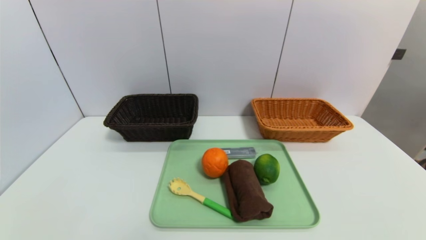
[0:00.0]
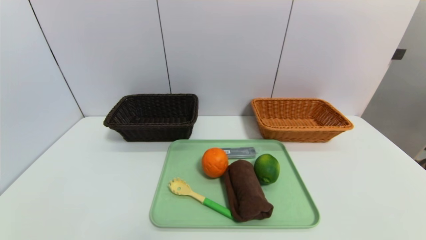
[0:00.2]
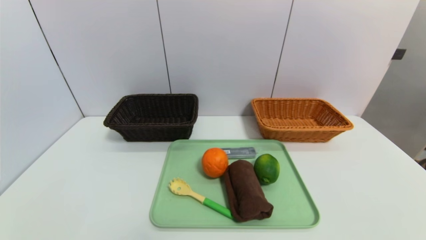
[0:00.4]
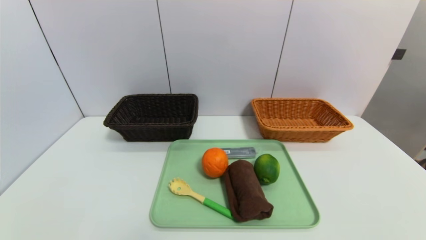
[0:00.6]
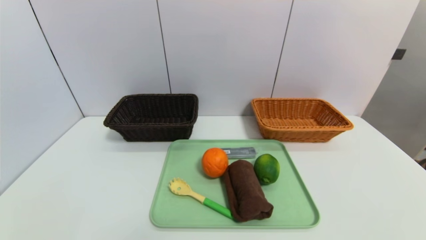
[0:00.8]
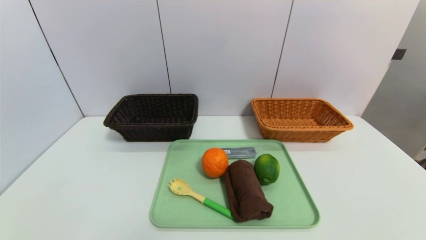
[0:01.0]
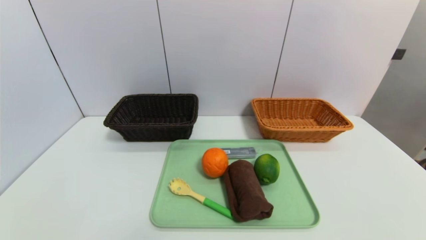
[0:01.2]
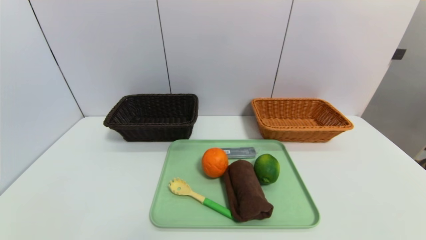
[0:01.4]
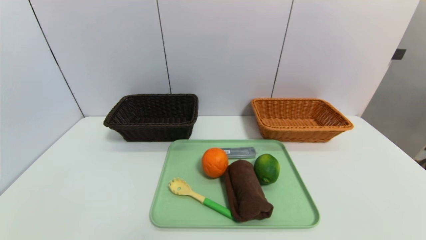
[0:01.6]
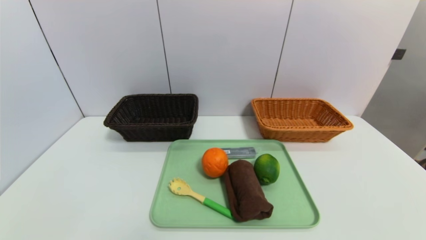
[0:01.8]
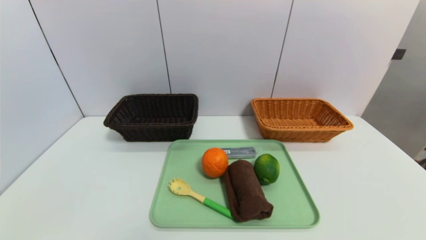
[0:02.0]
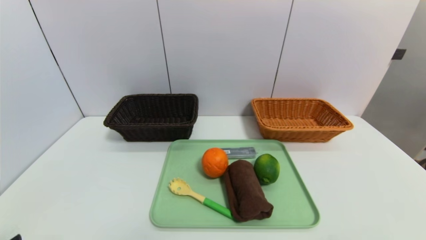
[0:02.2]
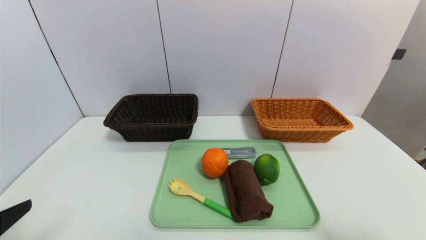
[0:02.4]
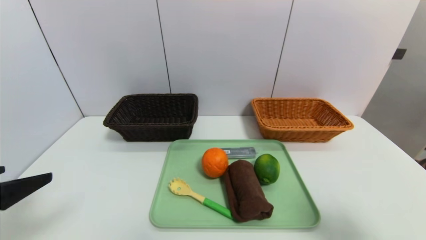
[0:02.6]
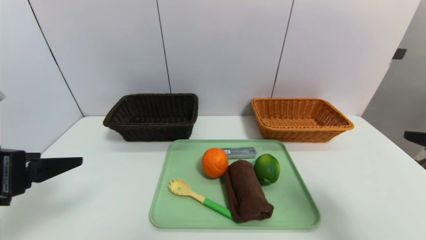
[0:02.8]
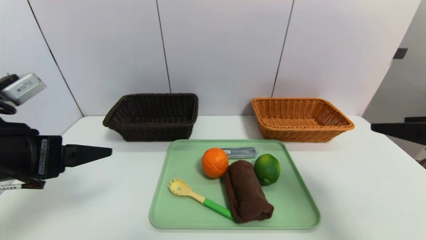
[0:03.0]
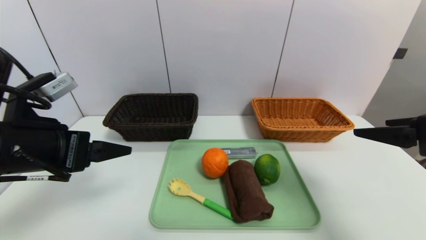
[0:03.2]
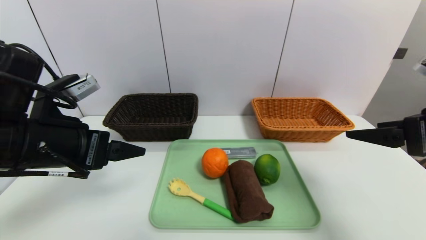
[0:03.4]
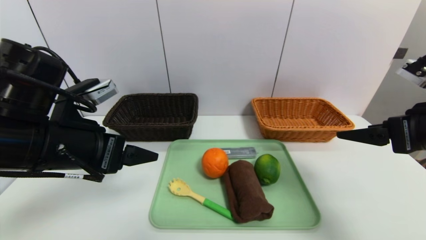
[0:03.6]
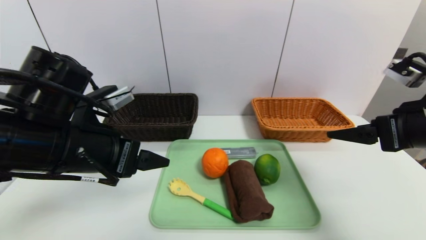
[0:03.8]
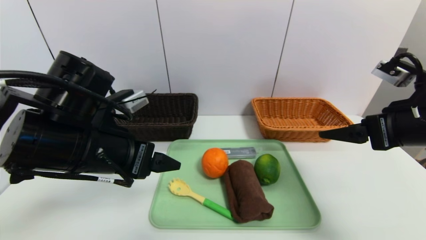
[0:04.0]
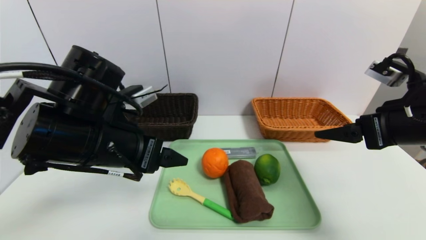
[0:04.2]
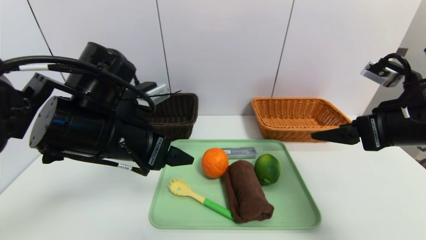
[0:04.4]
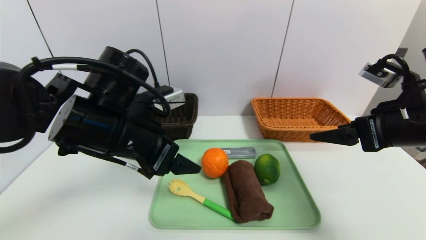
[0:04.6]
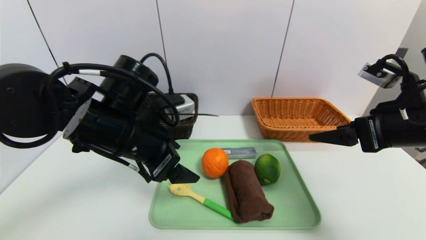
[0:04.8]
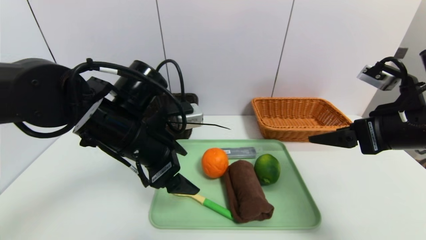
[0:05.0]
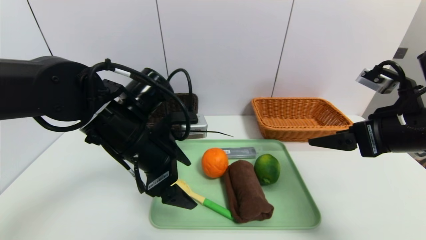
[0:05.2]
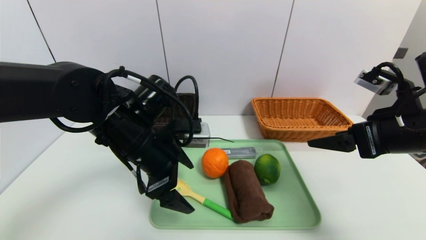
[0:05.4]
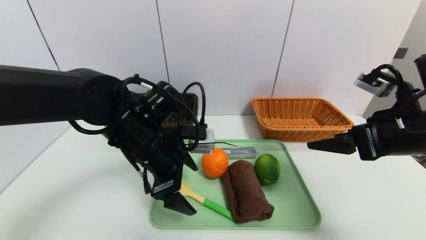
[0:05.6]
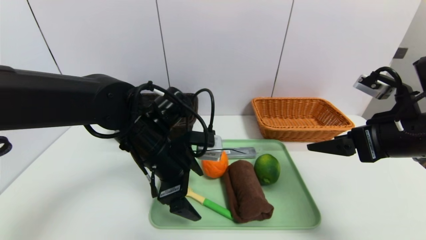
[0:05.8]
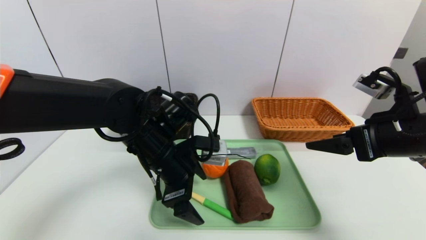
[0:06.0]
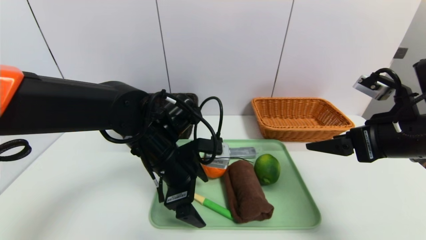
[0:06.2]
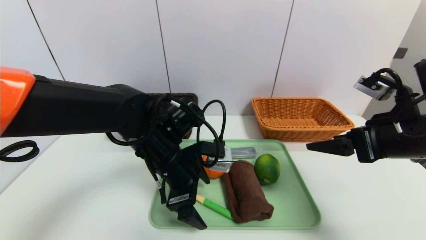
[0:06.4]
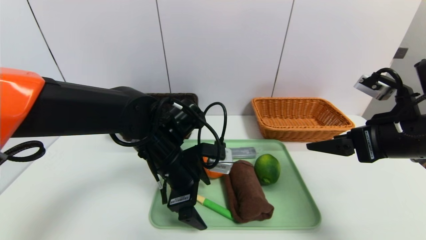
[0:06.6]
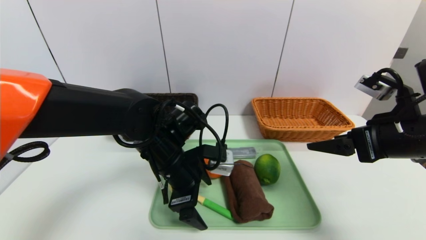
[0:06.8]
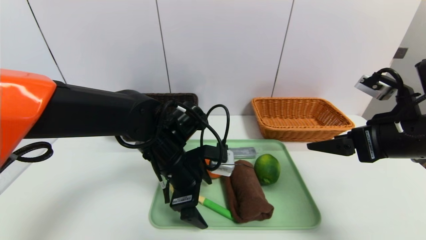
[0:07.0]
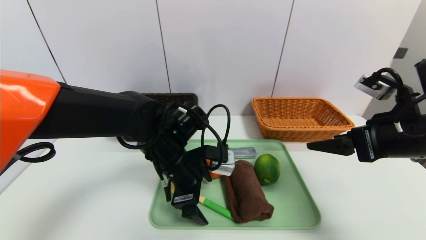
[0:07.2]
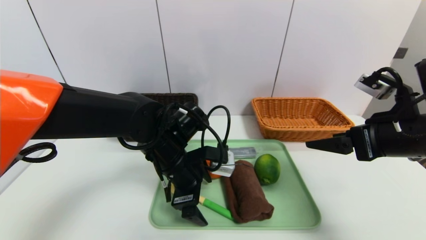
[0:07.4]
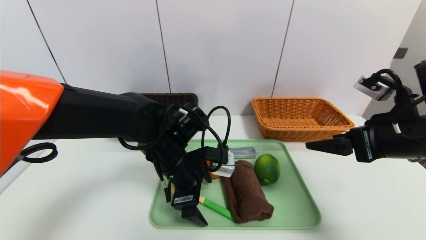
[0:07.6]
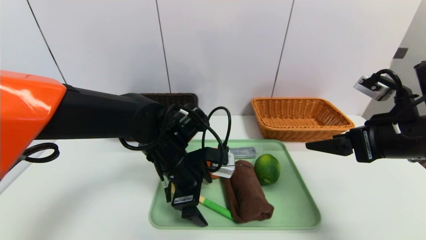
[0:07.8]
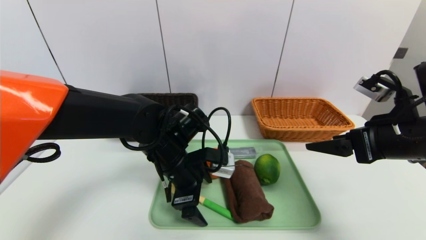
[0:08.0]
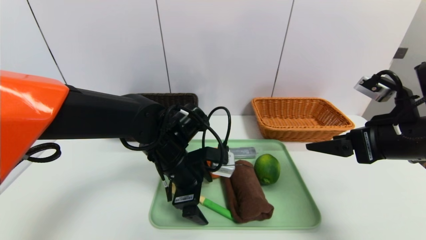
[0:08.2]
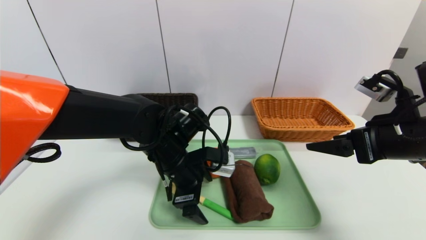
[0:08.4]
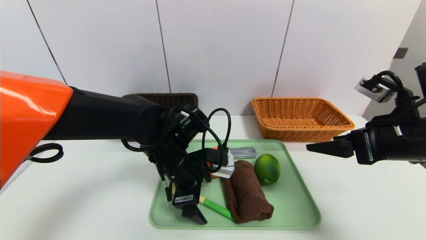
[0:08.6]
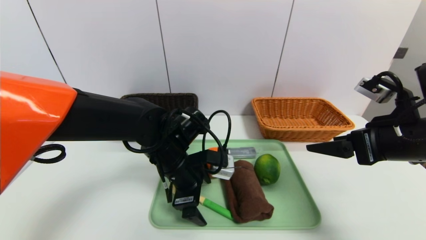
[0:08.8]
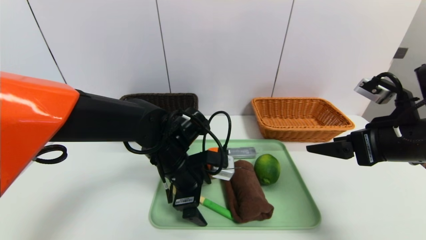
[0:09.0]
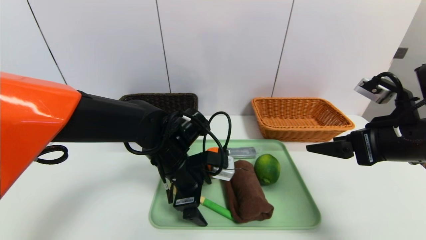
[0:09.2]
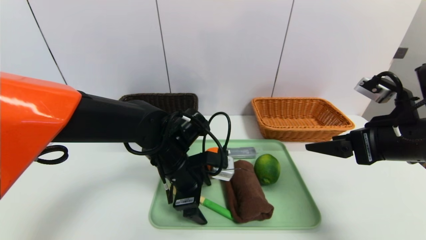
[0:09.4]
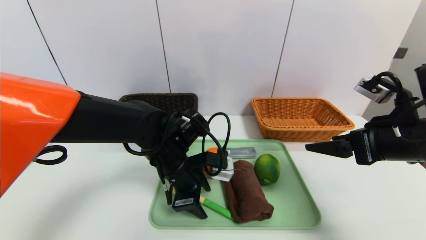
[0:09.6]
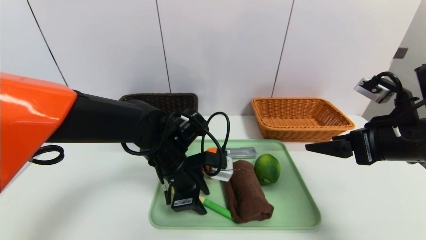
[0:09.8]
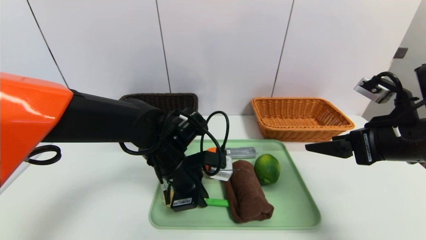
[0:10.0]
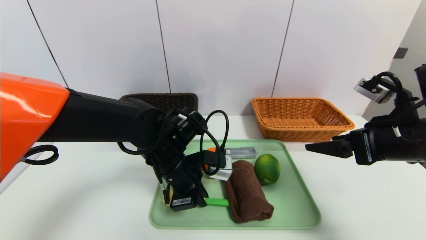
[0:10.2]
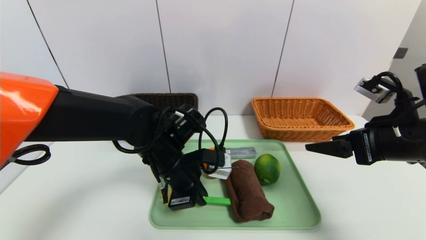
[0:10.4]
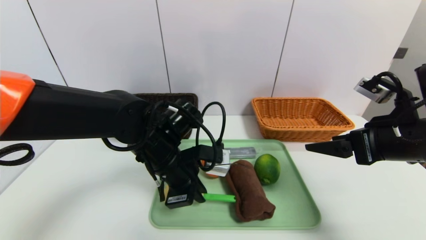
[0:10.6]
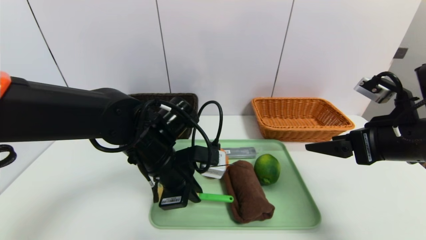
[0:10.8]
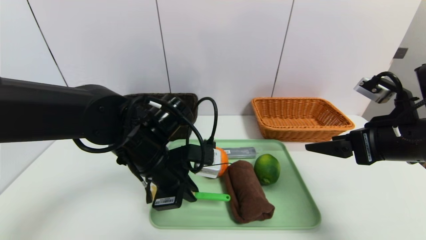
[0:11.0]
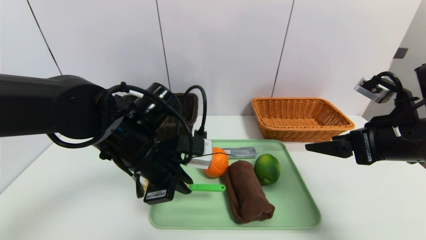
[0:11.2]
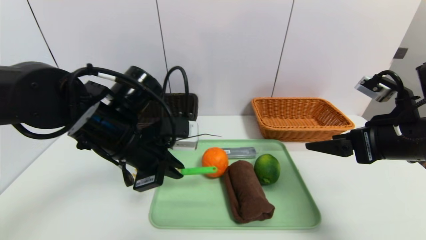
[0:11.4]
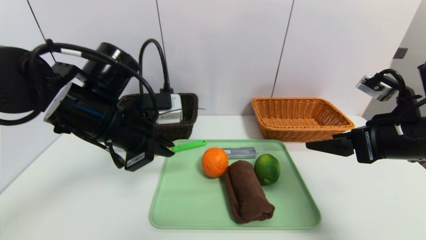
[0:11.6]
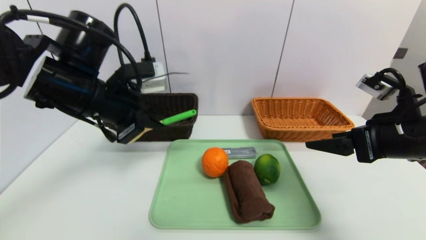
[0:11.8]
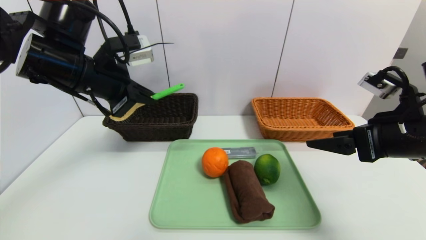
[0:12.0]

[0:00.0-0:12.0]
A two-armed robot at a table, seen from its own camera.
Task of the whole recording: place the food in the right basket with the right gripper, and place the non food items in the left basket with the left gripper.
0:01.6 to 0:03.0: The two grippers go some 25 cm forward and upward.
0:03.0 to 0:04.4: The left gripper moves to the right and forward, roughly 15 cm, while the right gripper shifts about 5 cm forward.
0:04.4 to 0:06.0: The left gripper moves downward and to the right, roughly 10 cm.
0:06.0 to 0:07.6: There are only small adjustments of the grippers.
0:07.6 to 0:09.0: The two grippers keep their place.
0:09.0 to 0:10.4: The left gripper closes up.
0:10.4 to 0:12.0: The left gripper shifts approximately 20 cm upward and to the left.

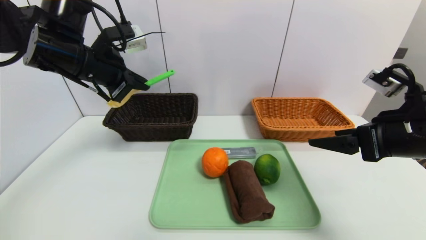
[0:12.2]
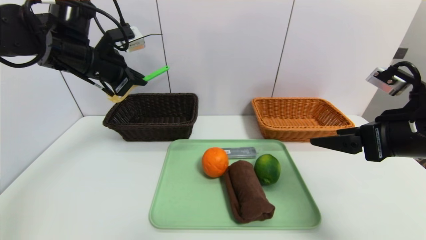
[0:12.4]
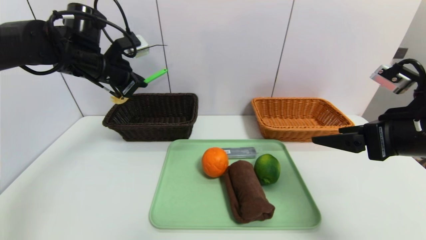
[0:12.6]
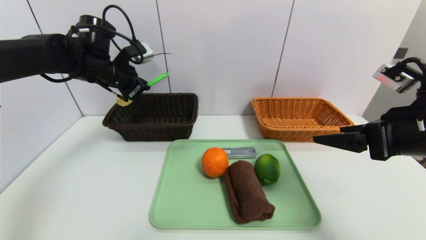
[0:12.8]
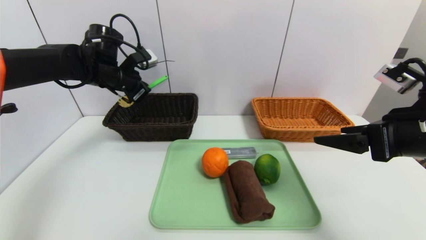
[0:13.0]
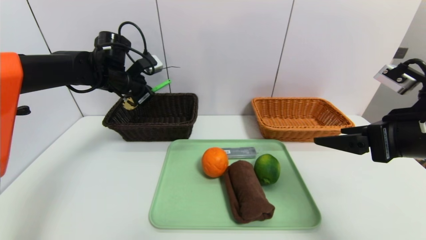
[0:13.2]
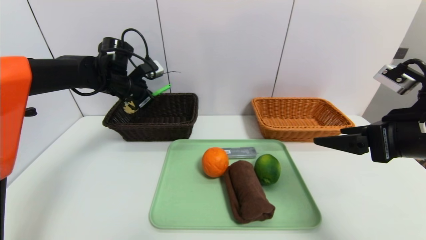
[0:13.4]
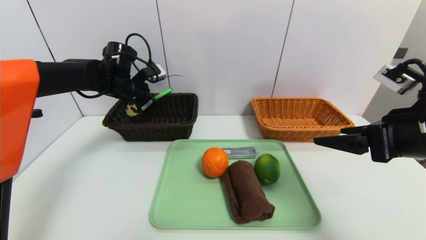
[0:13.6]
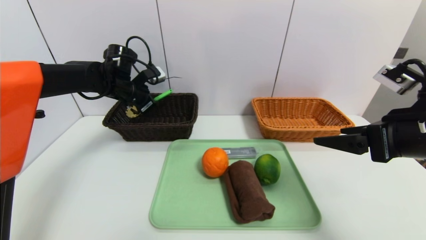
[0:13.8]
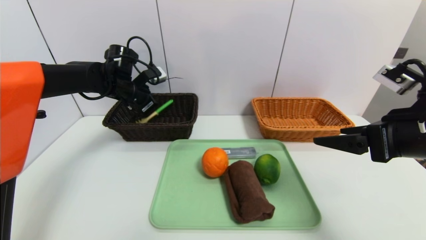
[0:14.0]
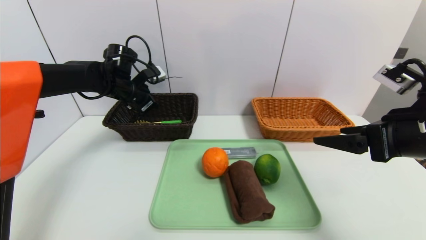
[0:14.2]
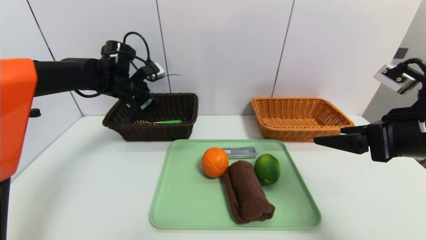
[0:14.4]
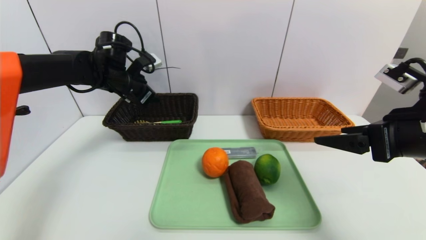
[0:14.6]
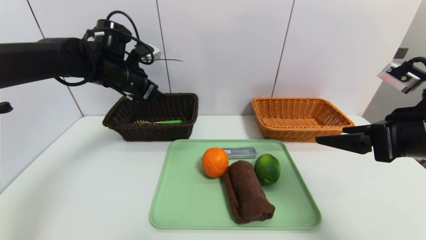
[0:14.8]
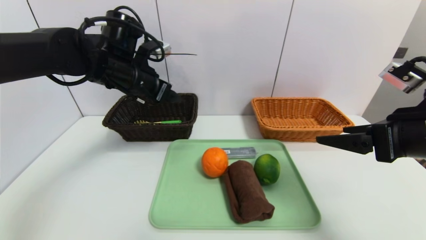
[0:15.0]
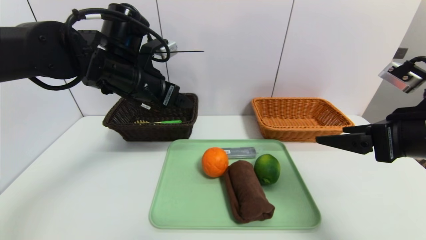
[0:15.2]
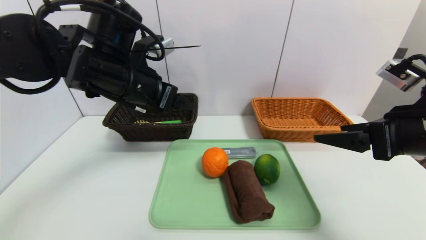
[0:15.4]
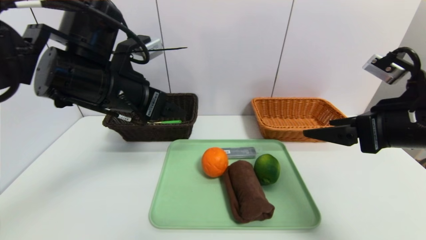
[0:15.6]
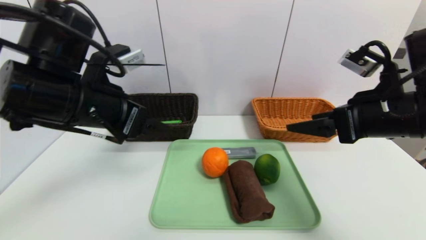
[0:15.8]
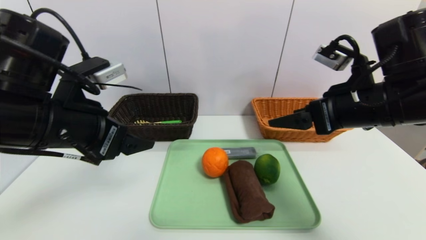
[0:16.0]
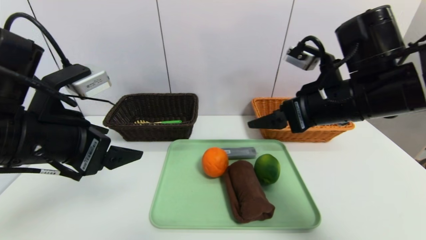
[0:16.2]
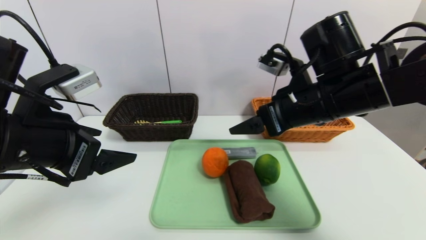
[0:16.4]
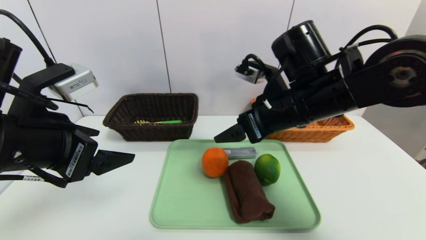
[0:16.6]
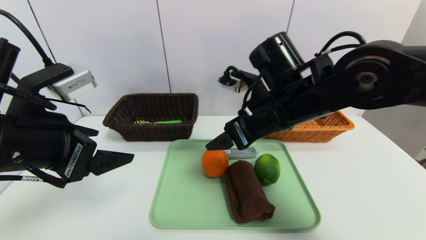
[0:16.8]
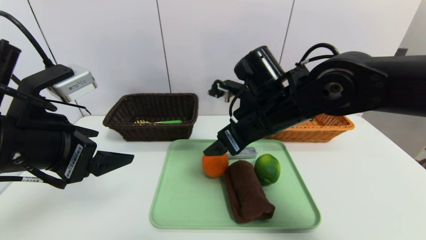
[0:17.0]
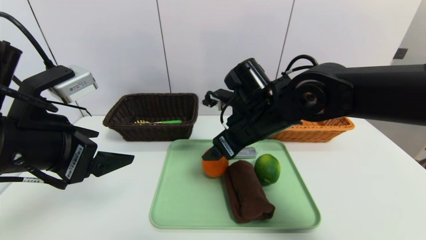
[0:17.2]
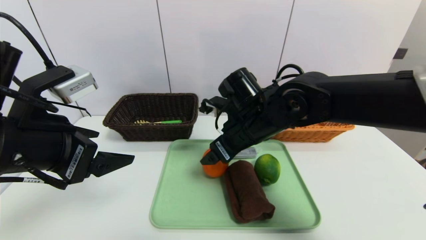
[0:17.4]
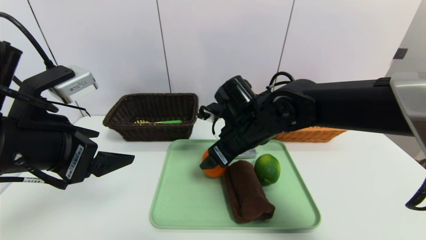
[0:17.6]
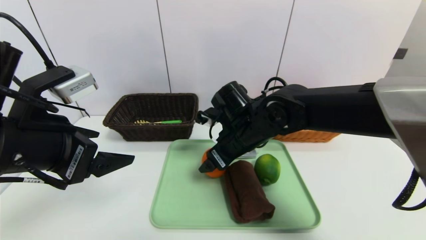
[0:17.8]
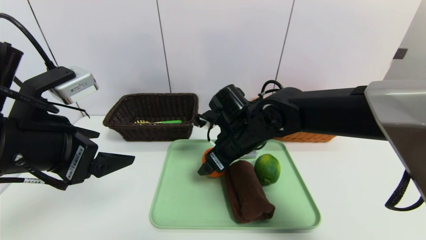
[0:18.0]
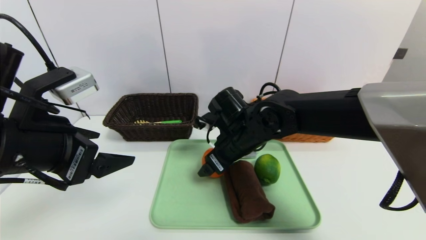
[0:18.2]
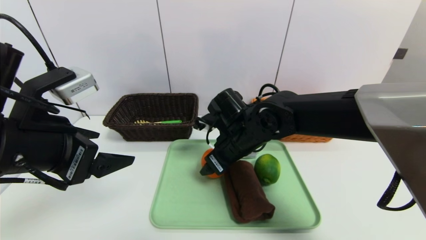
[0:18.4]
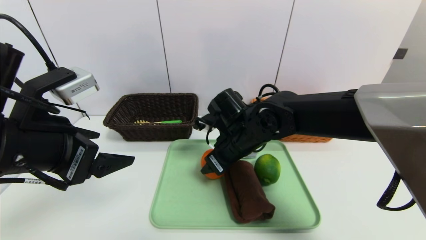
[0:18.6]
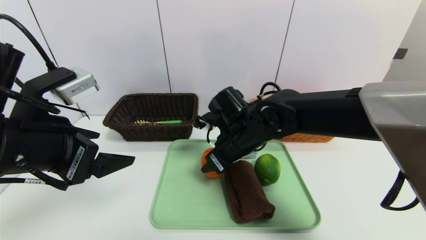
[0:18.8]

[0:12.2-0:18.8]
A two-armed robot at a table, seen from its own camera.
Task of the whole recording: place the food in the right basket with the right gripper, and place the non food items in the left basket with the left gripper.
Step, 0:12.2 to 0:14.2: Grasp the back scratcher and put it in the left basket.
0:12.2 to 0:13.8: The left gripper goes some 15 cm forward and downward.
0:13.8 to 0:15.4: The left gripper is displaced backward, to the right and upward by some 20 cm, and opens its fingers.
0:15.4 to 0:17.2: The right gripper moves to the left and forward, some 25 cm. Meanwhile the left gripper heads backward and to the left, covering some 15 cm.
0:17.2 to 0:18.8: The right gripper shifts by approximately 5 cm, and closes up.
